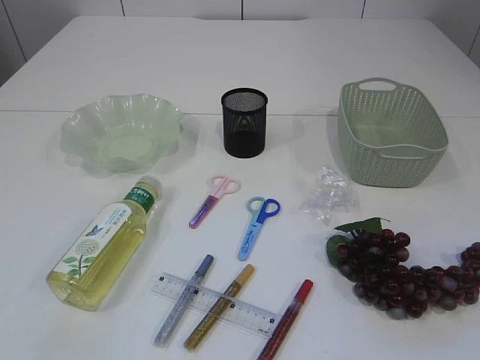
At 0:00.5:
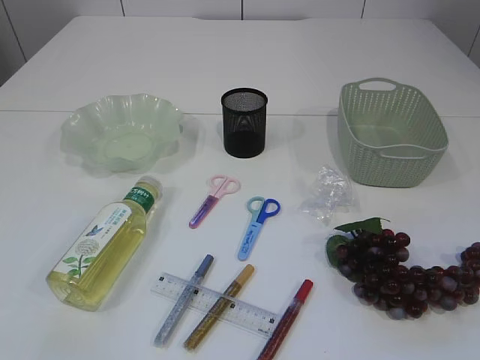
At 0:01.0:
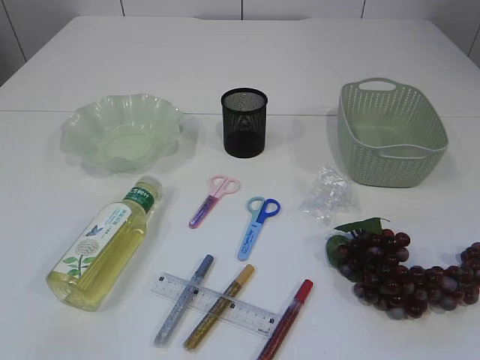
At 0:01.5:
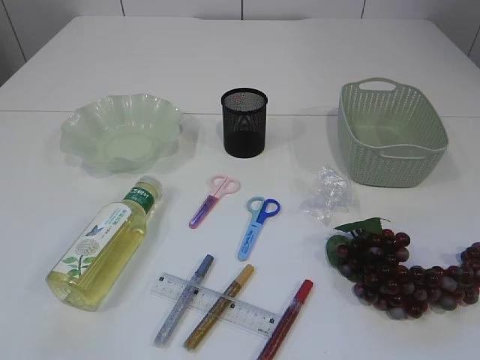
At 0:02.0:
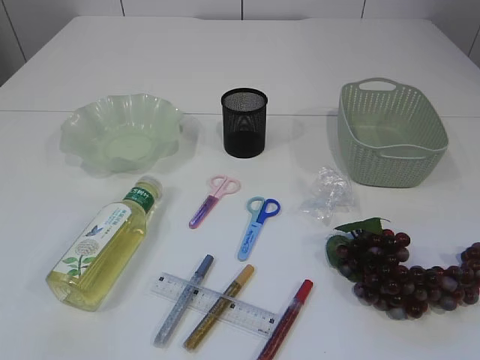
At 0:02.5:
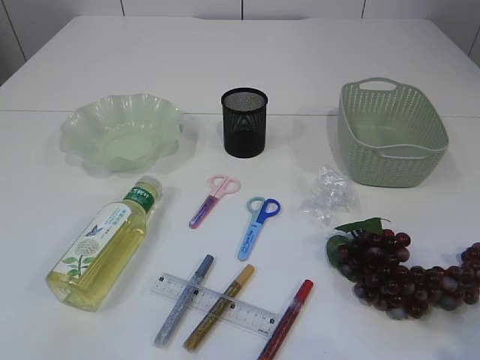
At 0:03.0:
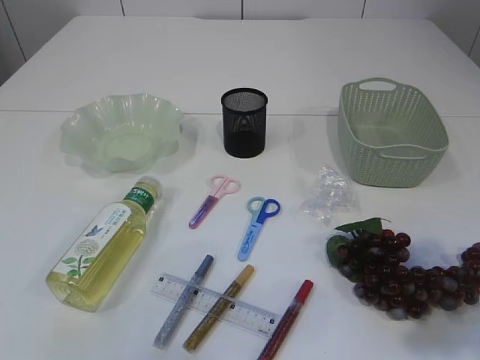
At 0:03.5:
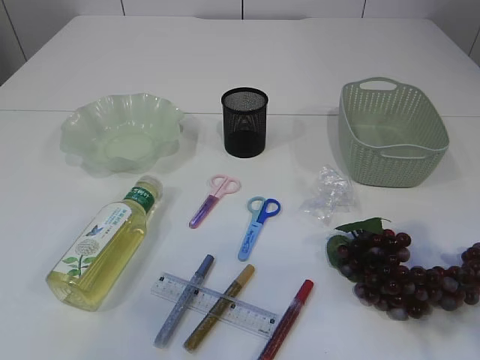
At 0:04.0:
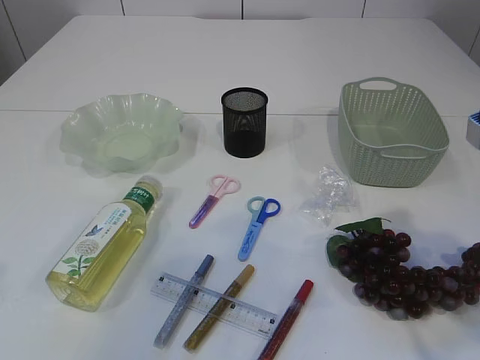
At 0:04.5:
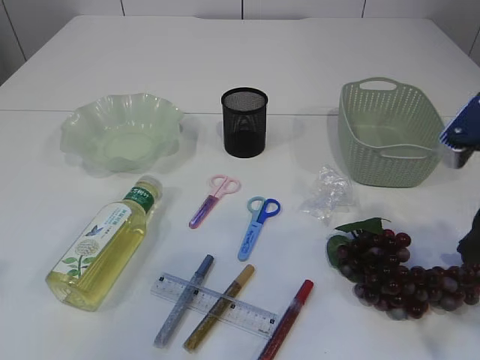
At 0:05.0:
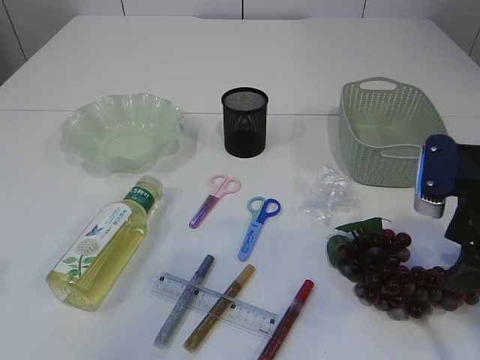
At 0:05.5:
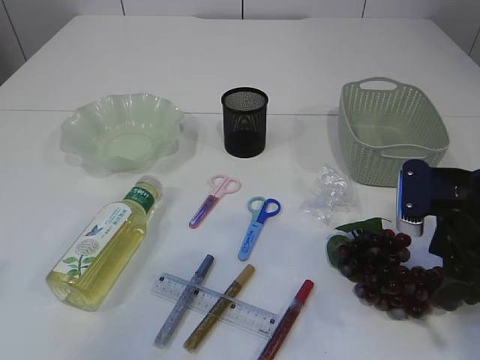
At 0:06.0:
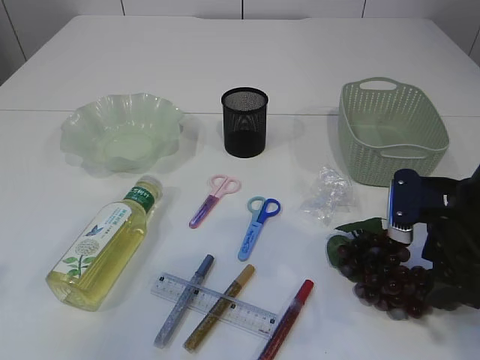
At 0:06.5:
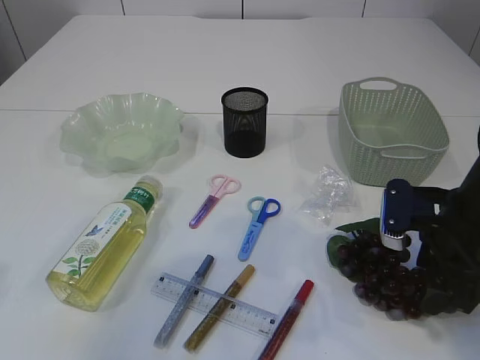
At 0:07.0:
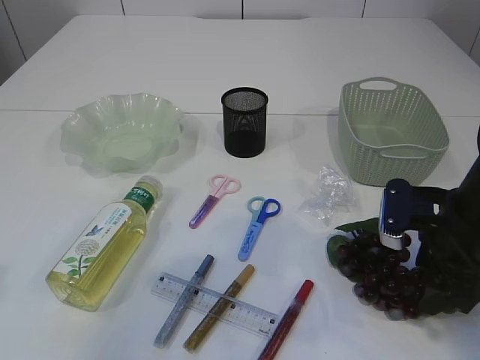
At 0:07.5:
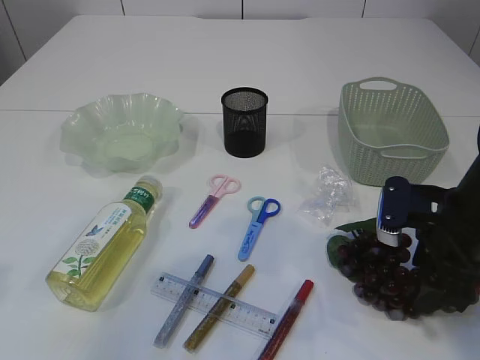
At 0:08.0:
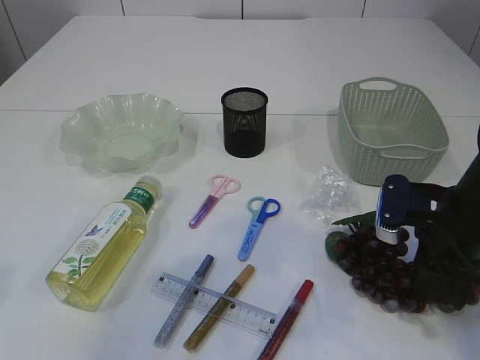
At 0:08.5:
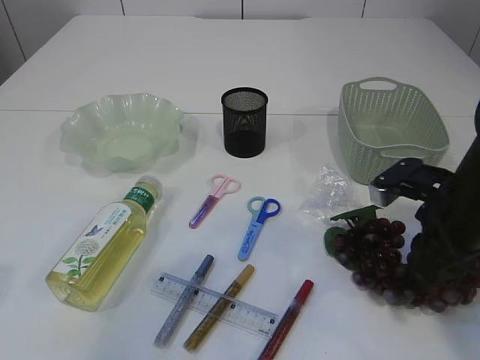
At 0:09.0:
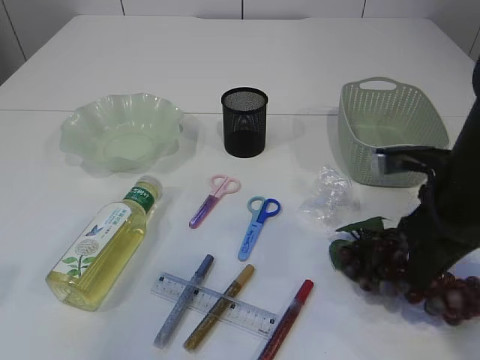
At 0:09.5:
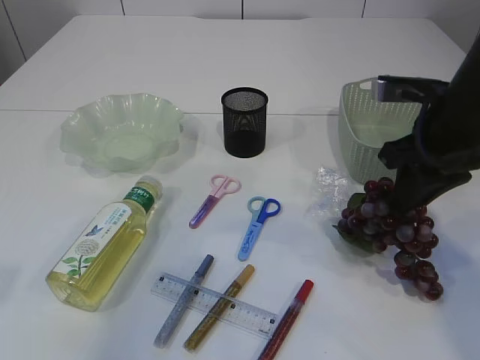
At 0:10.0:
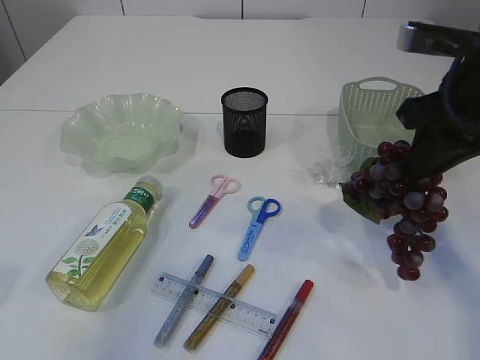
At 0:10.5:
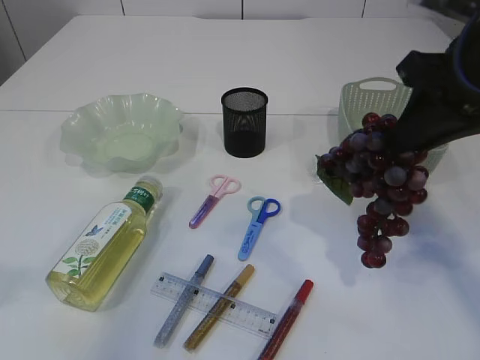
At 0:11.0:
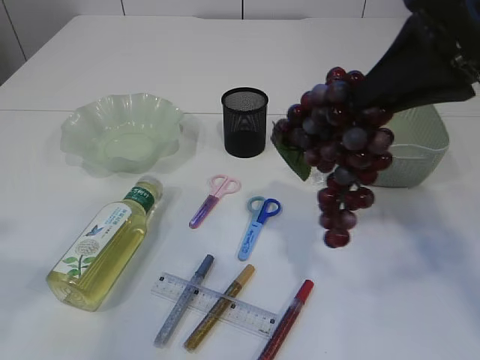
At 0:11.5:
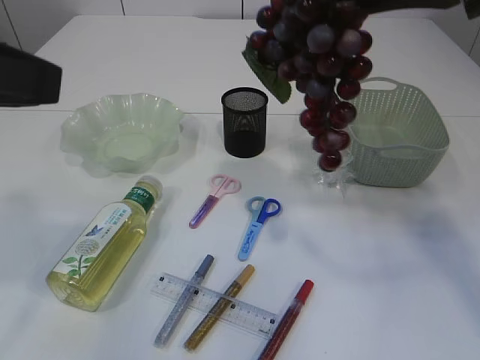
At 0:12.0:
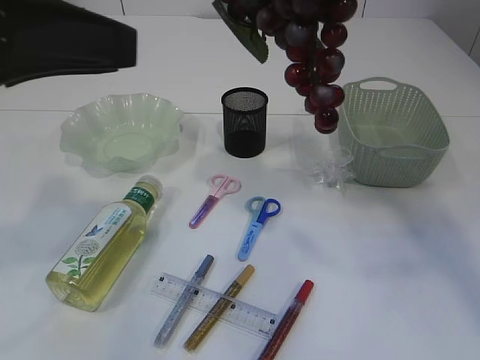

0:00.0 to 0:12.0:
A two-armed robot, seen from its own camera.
Step, 0:00.0 to 0:10.5: Pick up the grapes.
0:02.0 to 0:04.0: The left gripper heads forward and upward, covering some 15 cm. Meanwhile the right gripper shifts about 20 cm forward.
0:04.0 to 0:06.0: The right gripper travels downward and forward by roughly 15 cm.
0:06.0 to 0:08.0: The right gripper closes.
0:08.0 to 0:10.0: The right gripper heads upward, covering some 15 cm.
0:10.0 to 0:12.0: The right gripper shifts approximately 15 cm upward. Meanwhile the left gripper goes roughly 10 cm to the right and forward.

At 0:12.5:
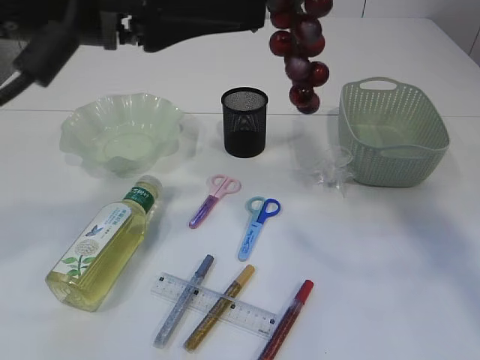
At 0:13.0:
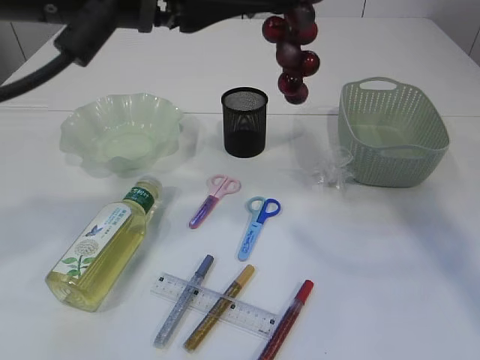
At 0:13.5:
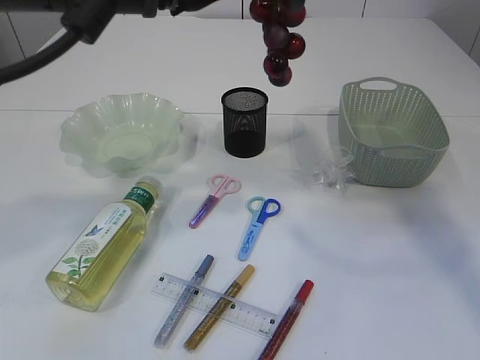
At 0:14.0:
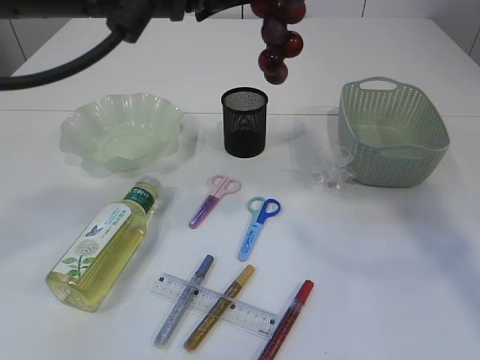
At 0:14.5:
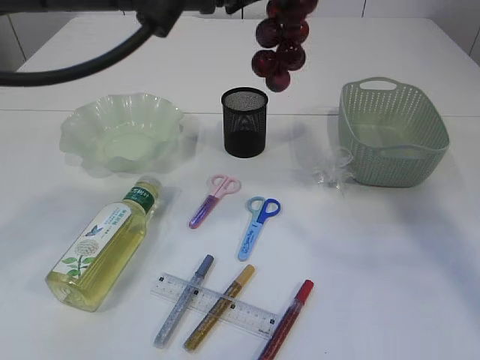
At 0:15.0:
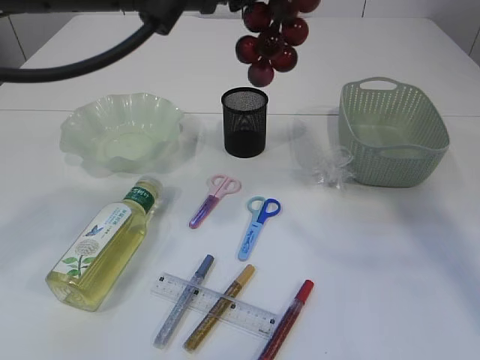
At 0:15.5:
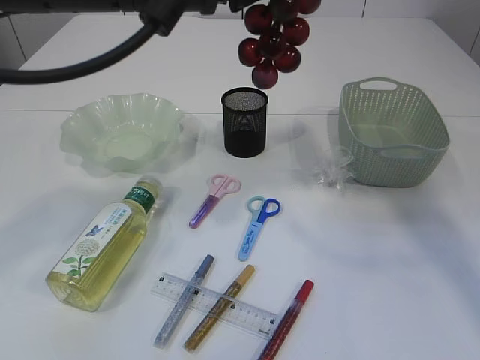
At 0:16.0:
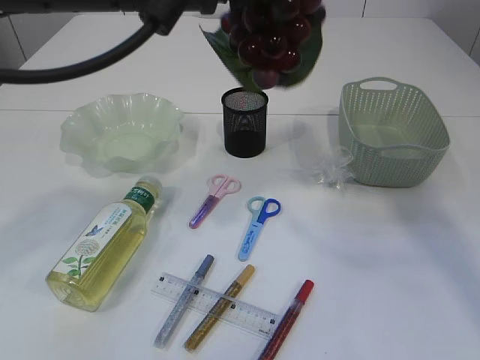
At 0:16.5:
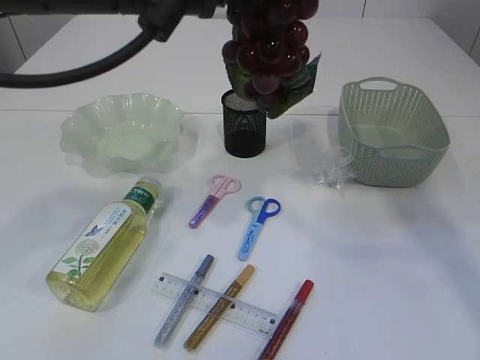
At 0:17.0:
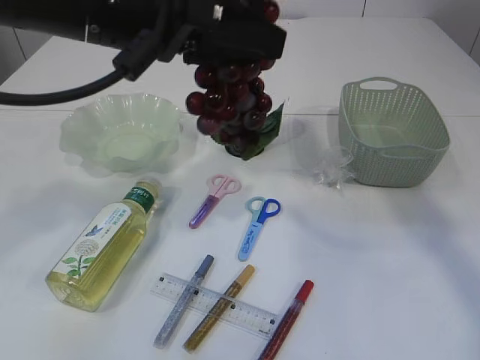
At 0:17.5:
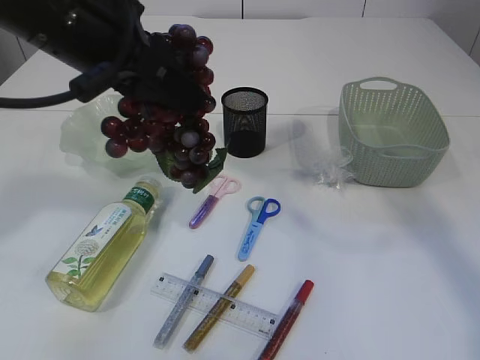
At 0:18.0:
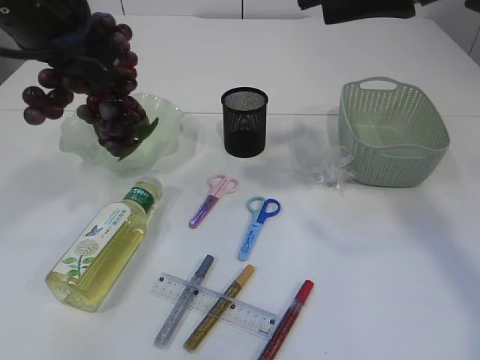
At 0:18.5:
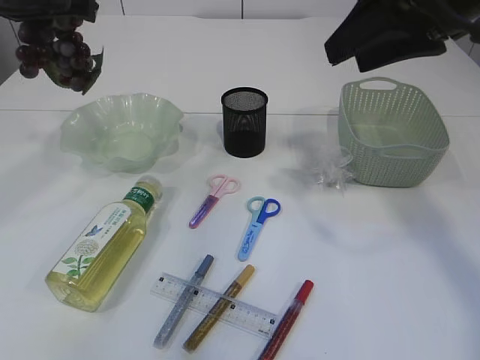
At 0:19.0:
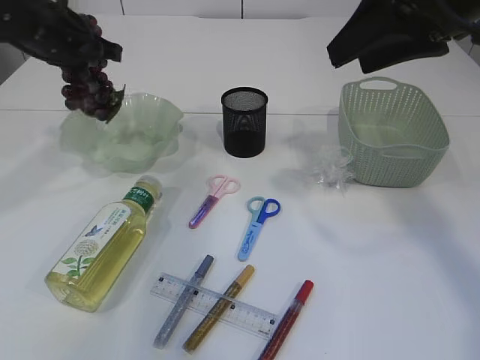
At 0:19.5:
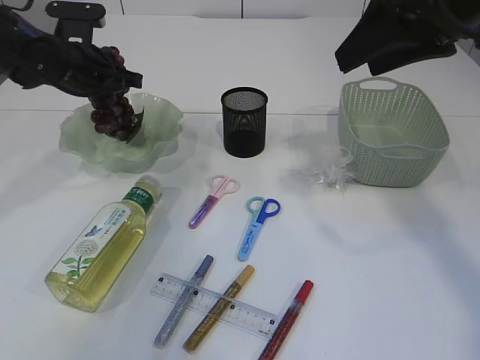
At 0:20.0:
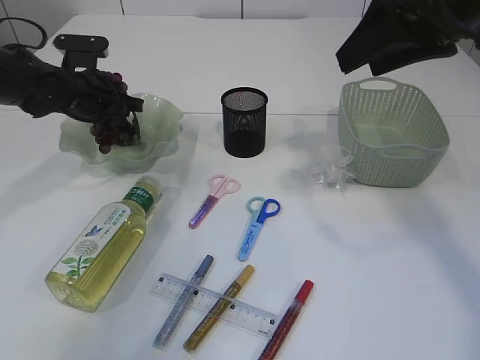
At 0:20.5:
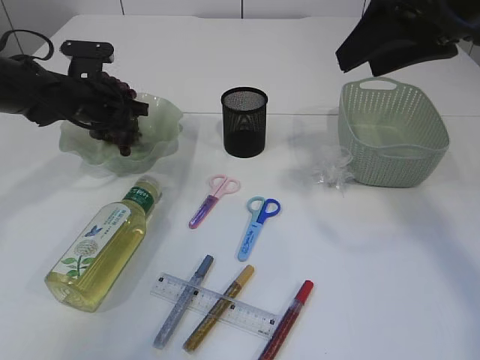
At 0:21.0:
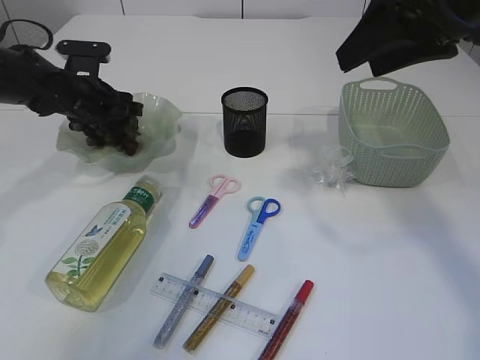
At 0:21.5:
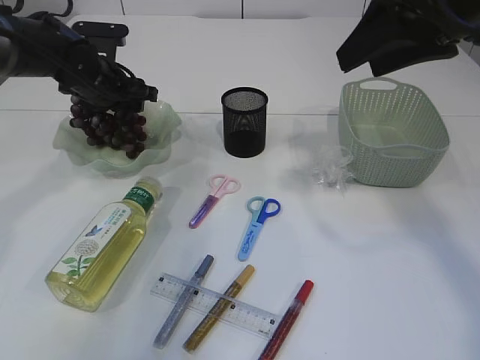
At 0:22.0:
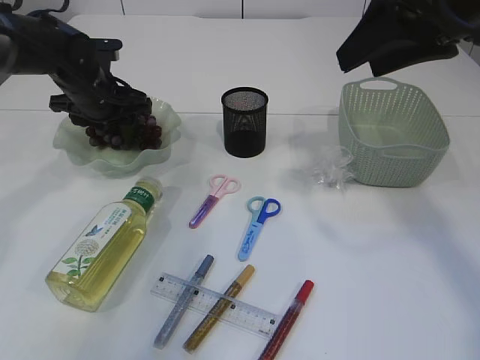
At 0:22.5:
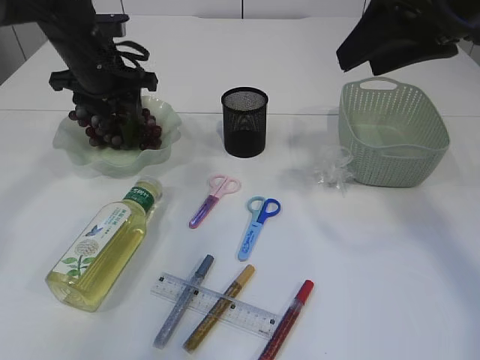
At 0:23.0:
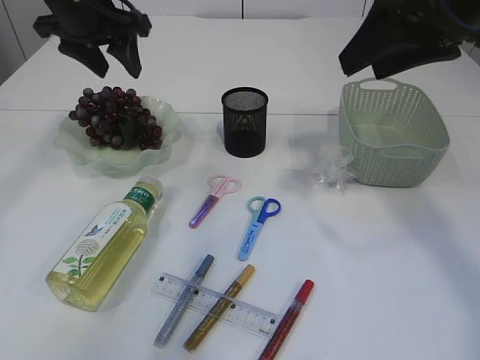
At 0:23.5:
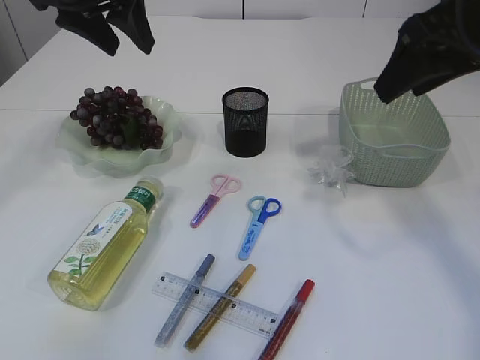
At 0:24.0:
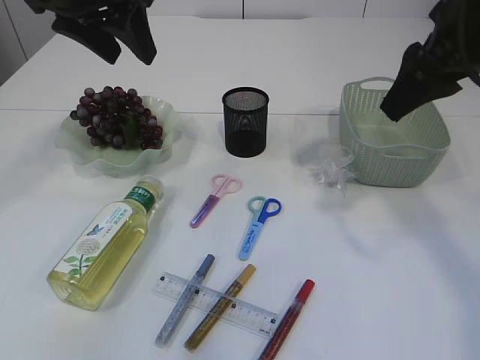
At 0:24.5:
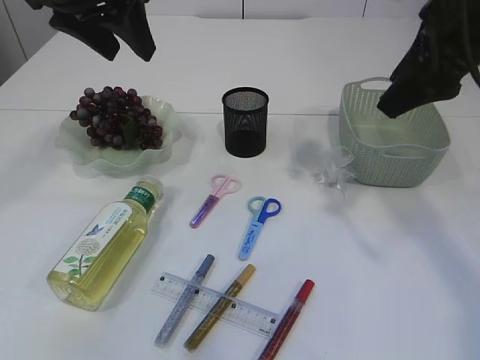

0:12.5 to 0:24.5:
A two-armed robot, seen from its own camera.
Step, 0:12.5 to 0:17.0: Hand over the grapes.
Step, 0:17.5 to 0:23.0: Place the grapes in the plate.
0:12.5 to 0:14.5: The left gripper heads to the right, covering roughly 5 cm.
0:14.5 to 0:16.5: The left gripper closes; the right gripper opens.
0:16.5 to 0:18.5: The left gripper travels to the left and forward by some 20 cm. Meanwhile the right gripper travels downward by some 5 cm.
0:18.5 to 0:20.5: The left gripper travels downward and forward by approximately 20 cm, and opens.
0:20.5 to 0:22.5: The left gripper travels upward by about 5 cm.
0:22.5 to 0:24.5: The left gripper is displaced upward and backward by approximately 20 cm.

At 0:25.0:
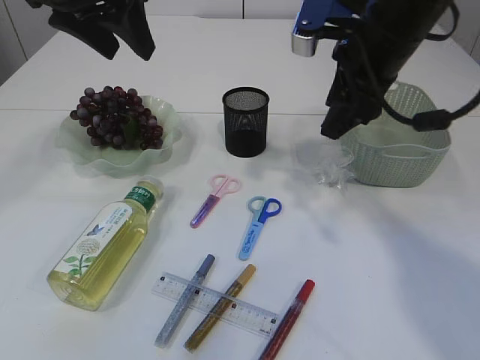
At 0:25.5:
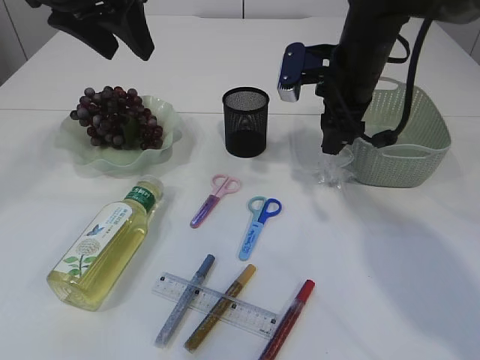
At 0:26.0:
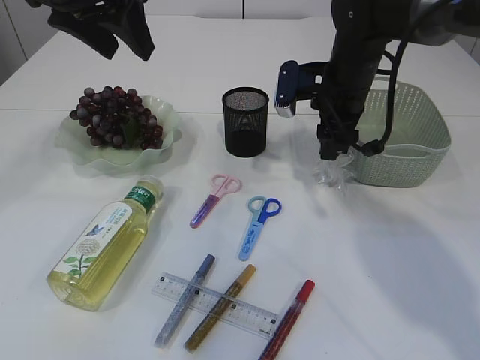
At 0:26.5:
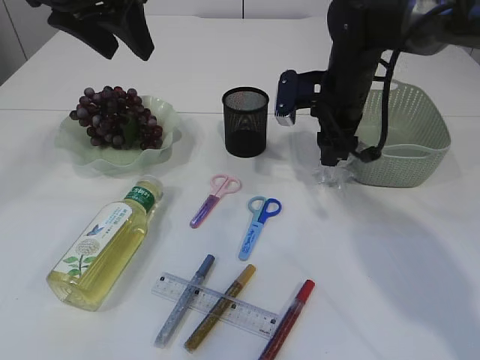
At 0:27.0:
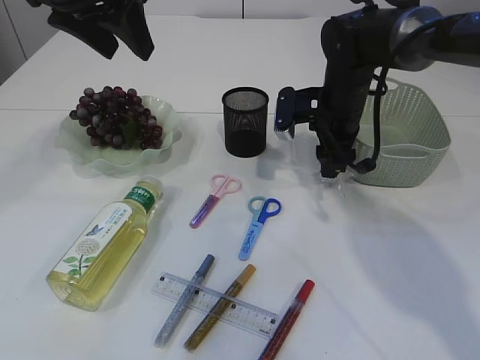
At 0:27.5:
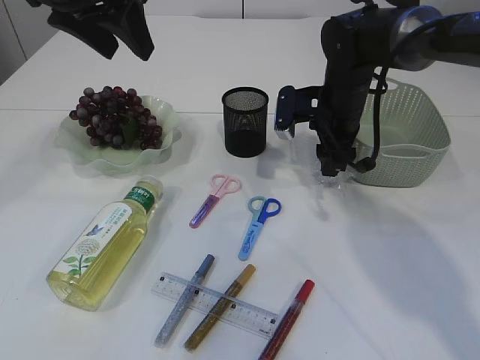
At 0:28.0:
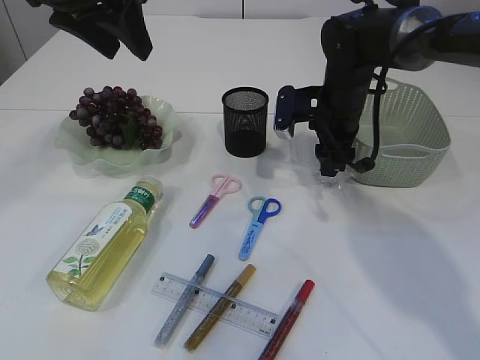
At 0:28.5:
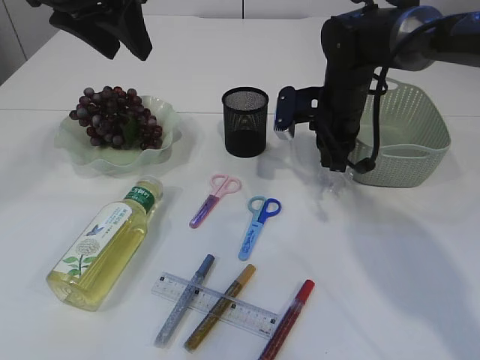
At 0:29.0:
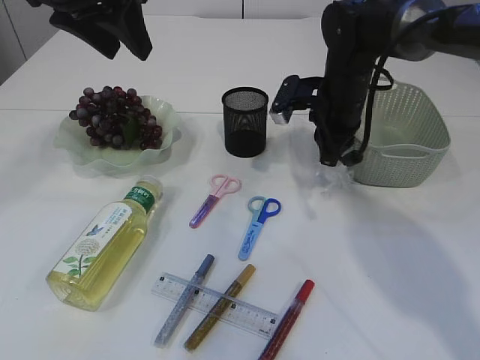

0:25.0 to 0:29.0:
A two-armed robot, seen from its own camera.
0:25.0 to 0:27.0: The right gripper is displaced downward and forward by some 15 cm.
0:27.0 to 0:29.0: The right gripper closes.
